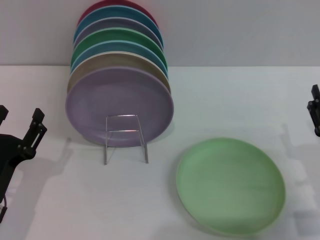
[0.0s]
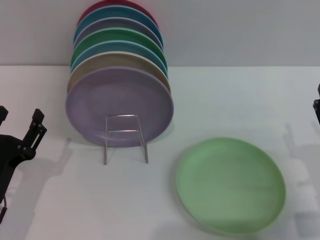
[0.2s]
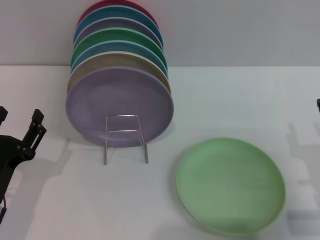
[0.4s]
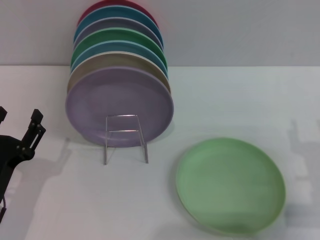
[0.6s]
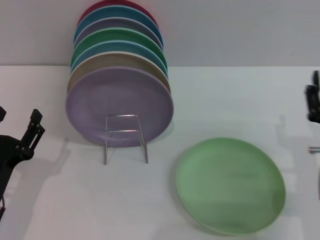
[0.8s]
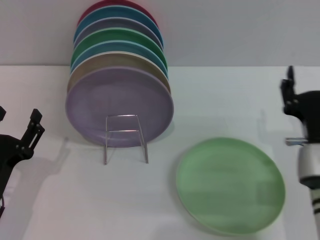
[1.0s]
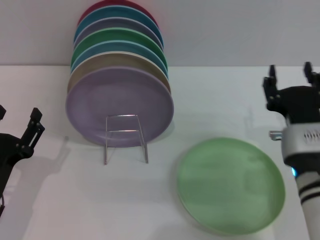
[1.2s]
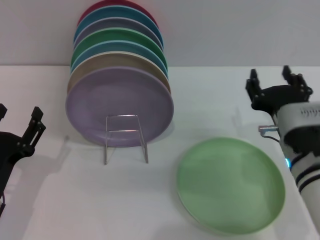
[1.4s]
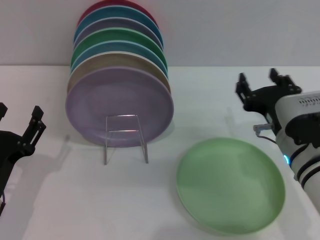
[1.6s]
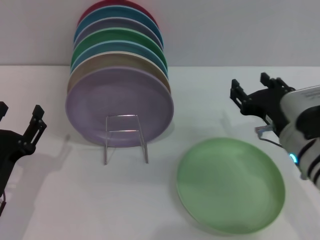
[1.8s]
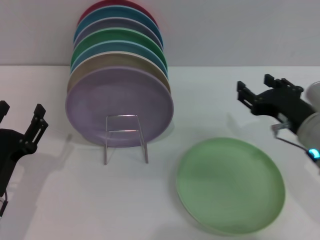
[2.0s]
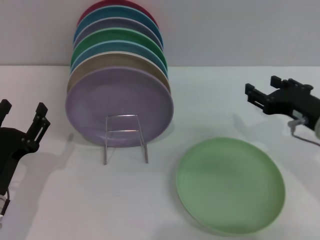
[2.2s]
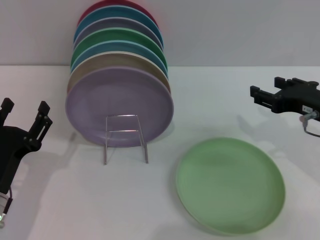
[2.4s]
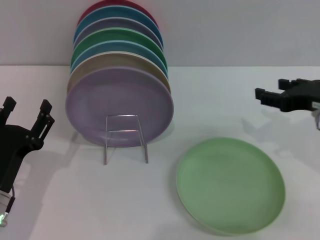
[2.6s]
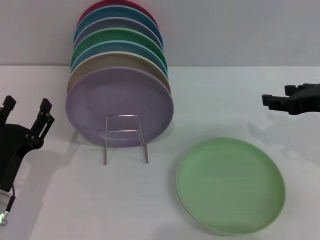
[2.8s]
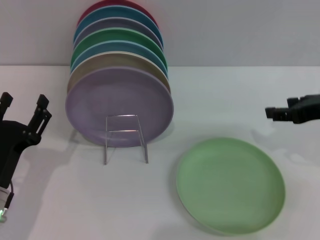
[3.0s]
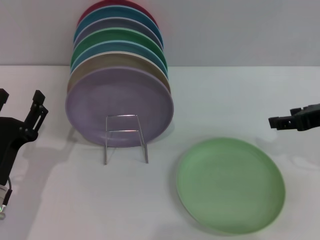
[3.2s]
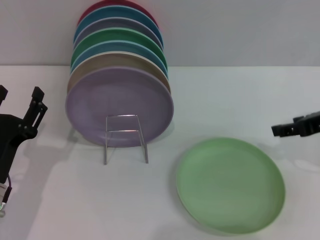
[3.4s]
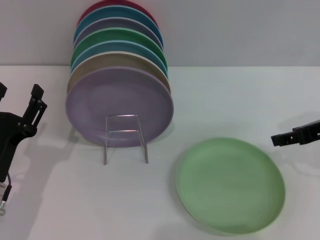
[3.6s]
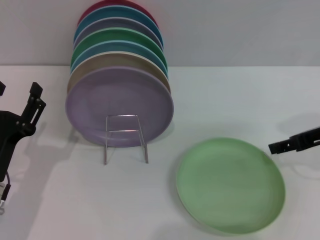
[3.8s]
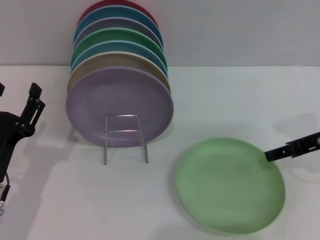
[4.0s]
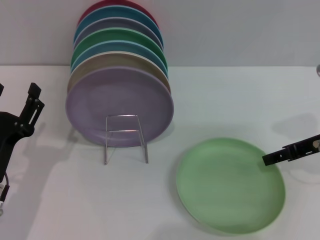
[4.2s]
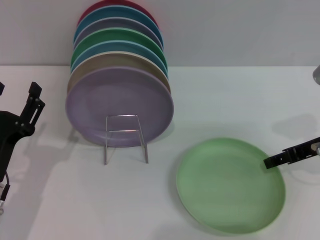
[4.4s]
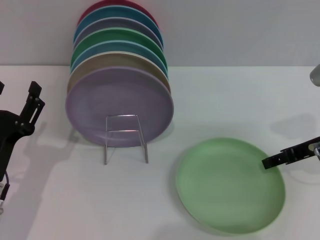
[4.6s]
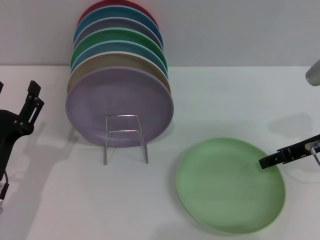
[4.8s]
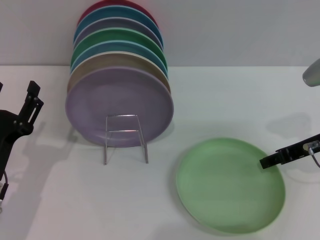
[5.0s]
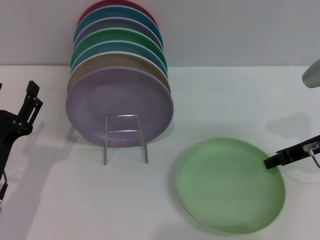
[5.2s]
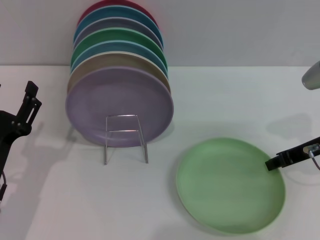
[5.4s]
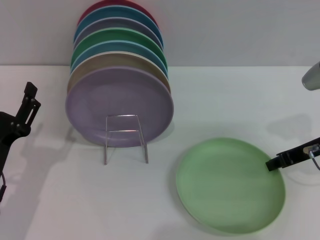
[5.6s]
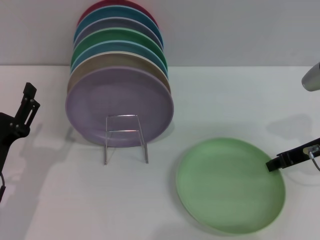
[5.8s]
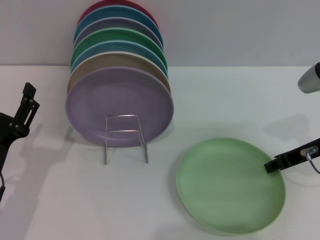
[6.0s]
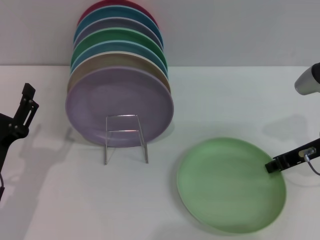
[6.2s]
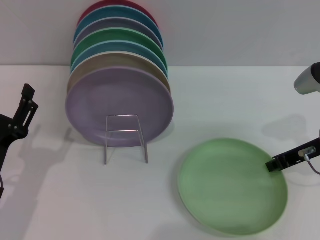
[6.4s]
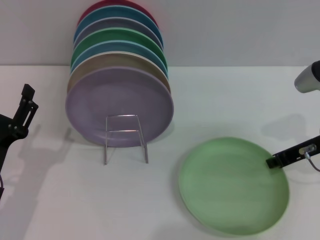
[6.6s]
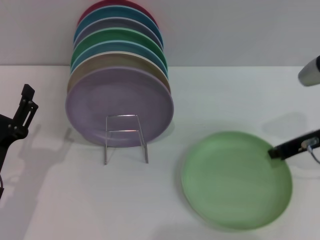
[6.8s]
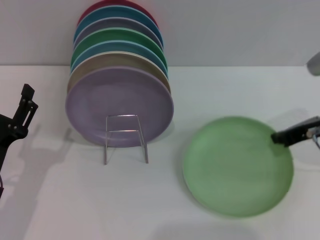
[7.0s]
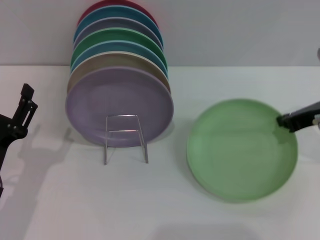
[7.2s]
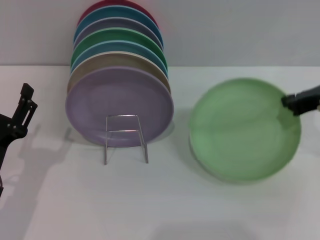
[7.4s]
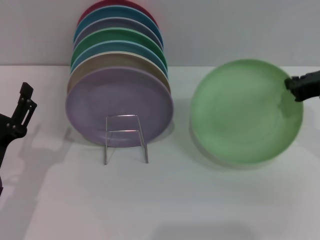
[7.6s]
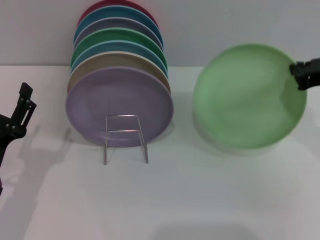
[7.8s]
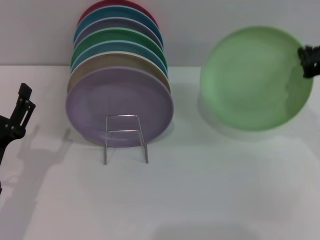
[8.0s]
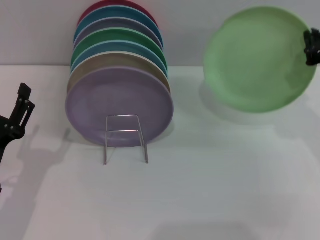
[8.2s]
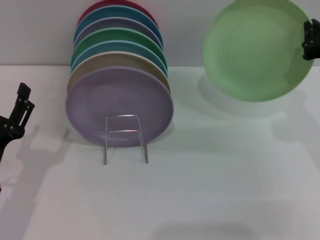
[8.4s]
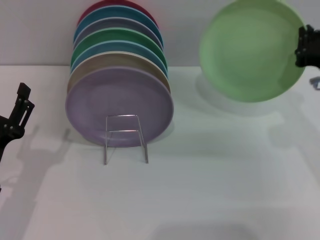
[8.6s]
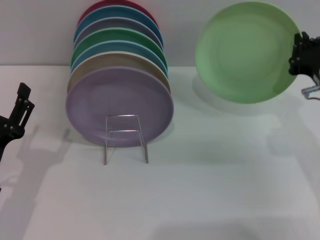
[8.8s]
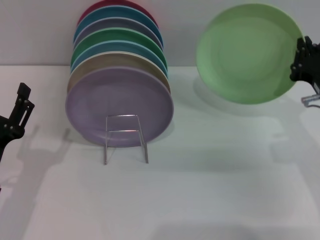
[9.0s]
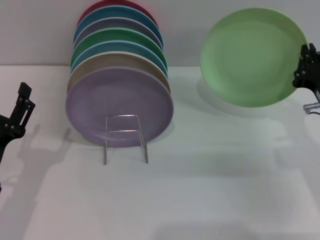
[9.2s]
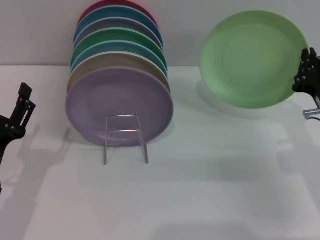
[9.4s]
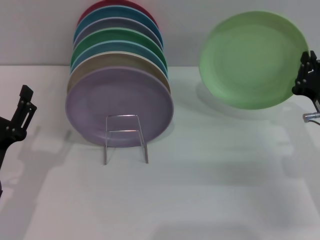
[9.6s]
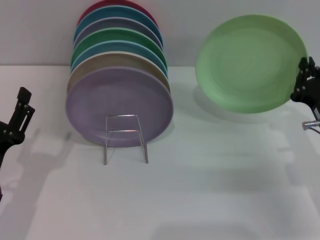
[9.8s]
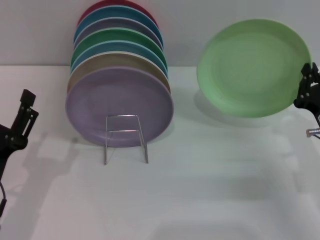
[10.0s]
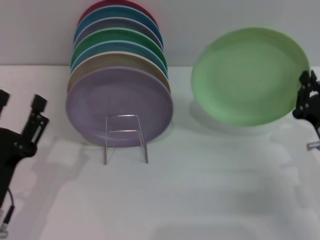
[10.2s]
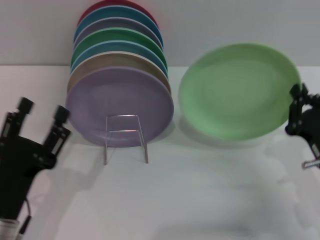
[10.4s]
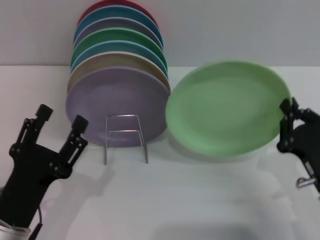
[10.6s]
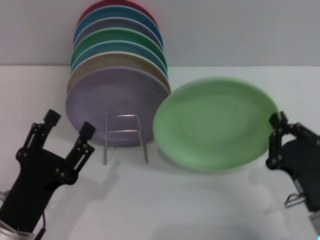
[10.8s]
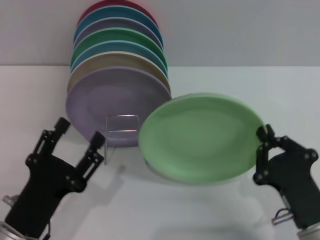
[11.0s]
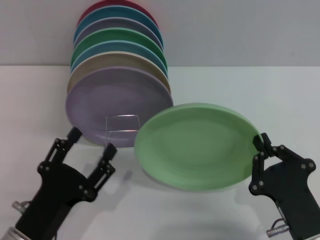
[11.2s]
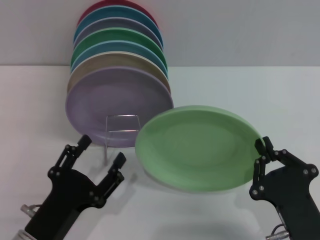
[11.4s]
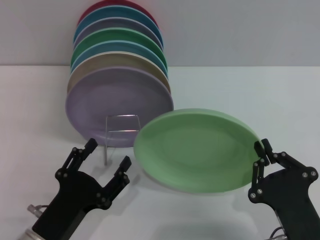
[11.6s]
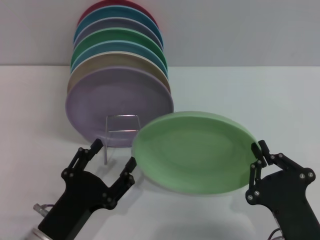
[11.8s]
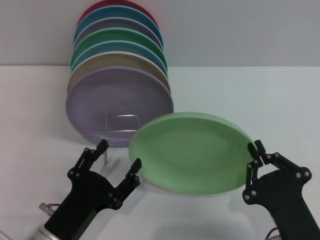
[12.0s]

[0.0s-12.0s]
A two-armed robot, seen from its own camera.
Task of the whole recording: Grip the plate with one hand, pass it to the other, then set it on the shelf.
Step, 0.0s to 9.0s: Pick up the plate with the right gripper.
0.0s to 1.6s: The right gripper heads to the left, upward and forward, covering about 15 cm.
1.6s to 3.0s: The right gripper is displaced to the right and upward by roughly 15 cm.
4.4s to 6.0s: The right gripper closes up.
6.0s to 7.6s: The right gripper shifts some 5 cm upward.
7.6s to 9.0s: The right gripper goes approximately 10 cm downward.
9.0s to 10.4s: The right gripper goes roughly 10 cm backward and downward, while the left gripper changes place by roughly 5 cm.
10.4s to 12.0s: The right gripper shifts about 15 cm backward and to the left, while the left gripper moves approximately 5 cm.

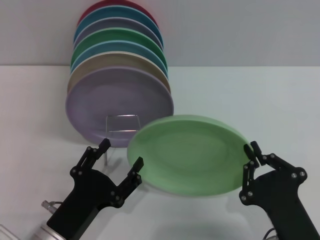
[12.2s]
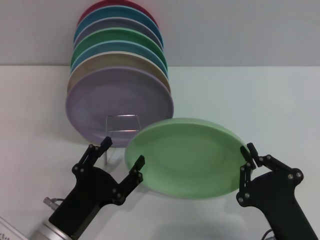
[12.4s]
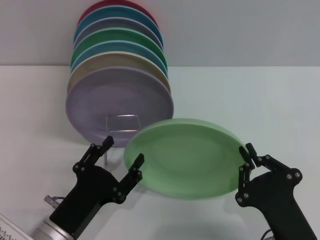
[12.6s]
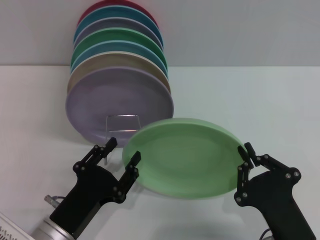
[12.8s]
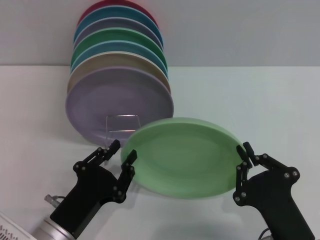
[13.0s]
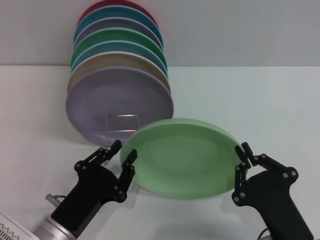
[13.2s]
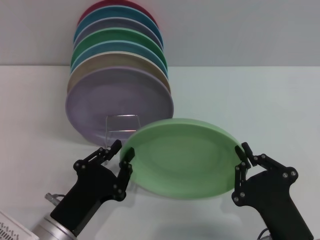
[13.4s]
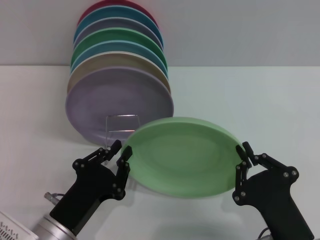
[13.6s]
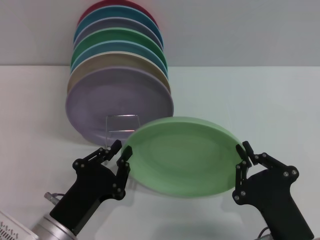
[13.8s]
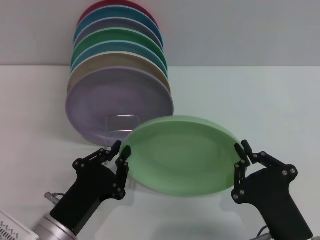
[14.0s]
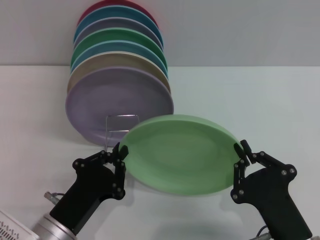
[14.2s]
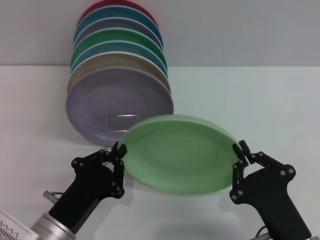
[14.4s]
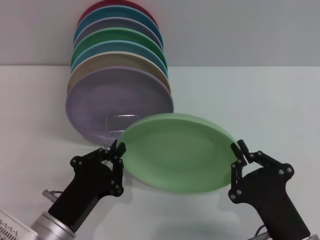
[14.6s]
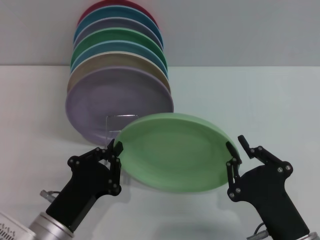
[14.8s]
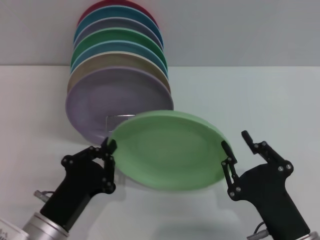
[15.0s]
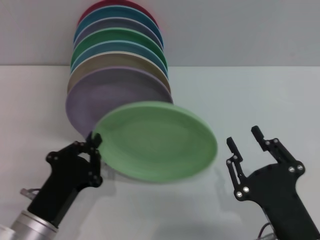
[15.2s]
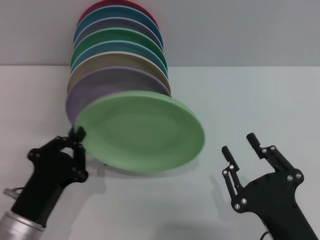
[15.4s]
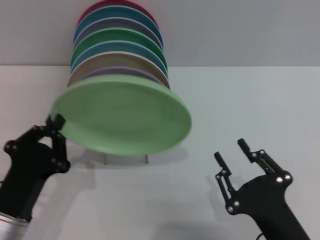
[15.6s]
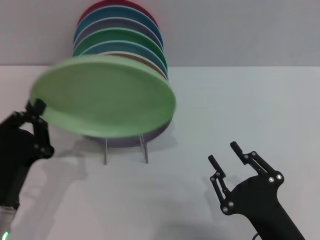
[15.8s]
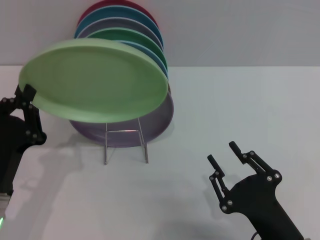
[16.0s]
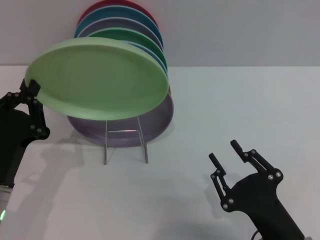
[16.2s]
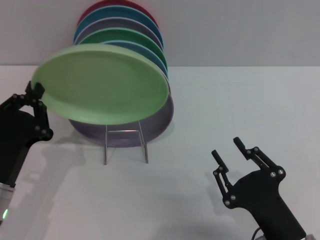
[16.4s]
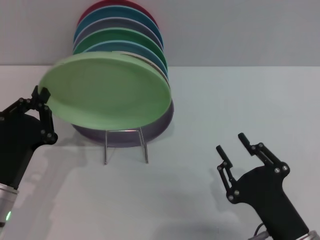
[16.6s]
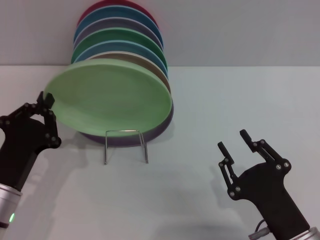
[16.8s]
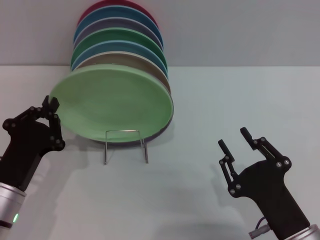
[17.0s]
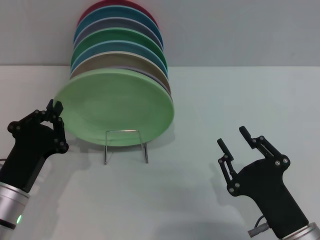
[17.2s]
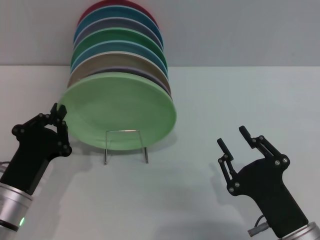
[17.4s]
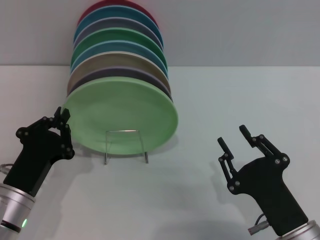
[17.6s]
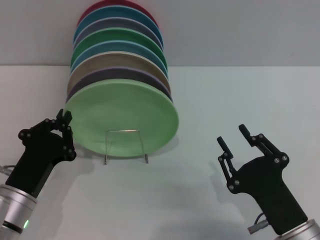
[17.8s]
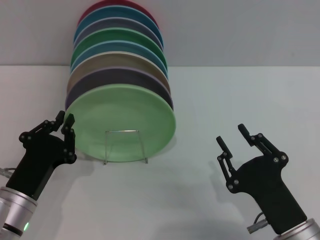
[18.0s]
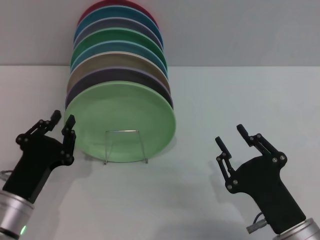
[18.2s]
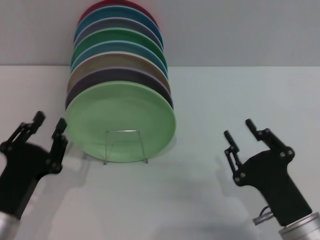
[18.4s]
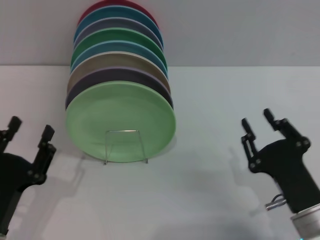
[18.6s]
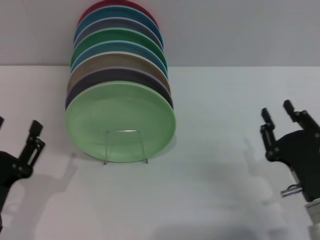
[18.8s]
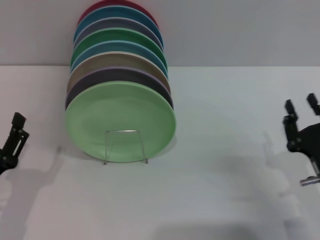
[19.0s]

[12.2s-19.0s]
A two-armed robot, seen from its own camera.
Task of the whole recording: Grip the plate with one hand, pass it to the other, then set it on the shelf.
Step, 12.2s to 15.2s: Pass the plate from the right gripper to the left gripper.
Step, 15.4s to 18.2s: Place the plate on the shelf with the left gripper.
12.2s to 13.6s: The left gripper closes.
13.6s to 15.0s: Both grippers stay about where they are.
15.0s to 16.2s: The right gripper opens, while the left gripper goes about 5 cm to the left.
17.6s to 19.0s: The left gripper moves roughly 5 cm, and opens up. Meanwhile the right gripper moves to the right and forward, approximately 10 cm.
